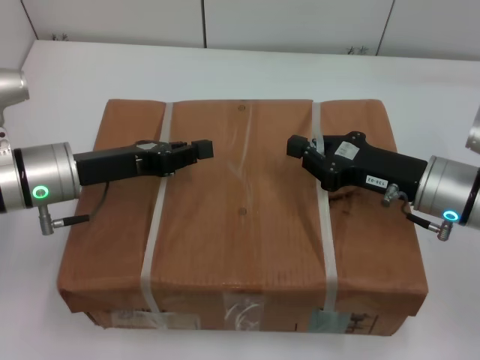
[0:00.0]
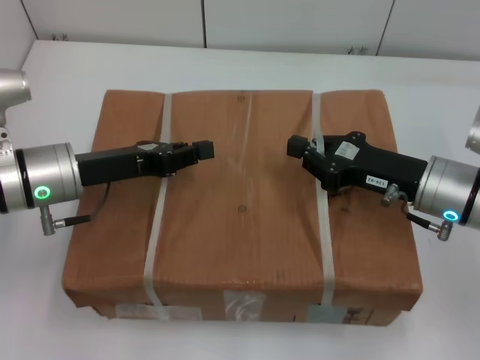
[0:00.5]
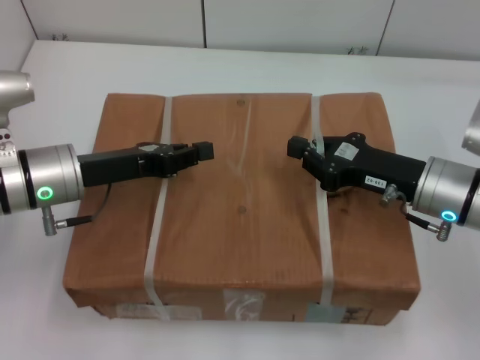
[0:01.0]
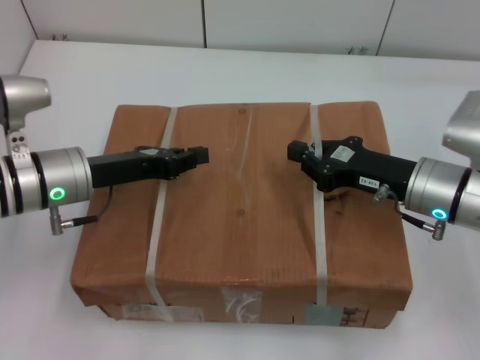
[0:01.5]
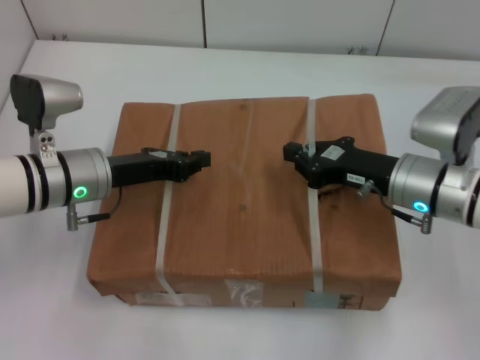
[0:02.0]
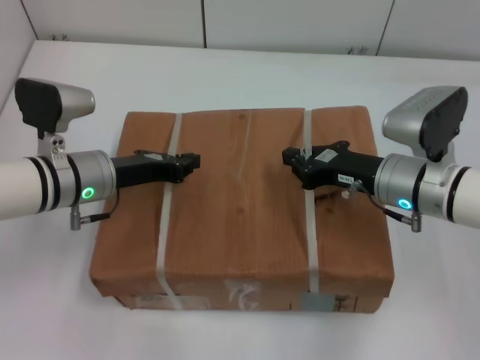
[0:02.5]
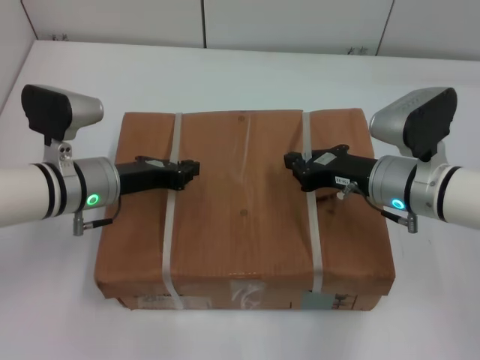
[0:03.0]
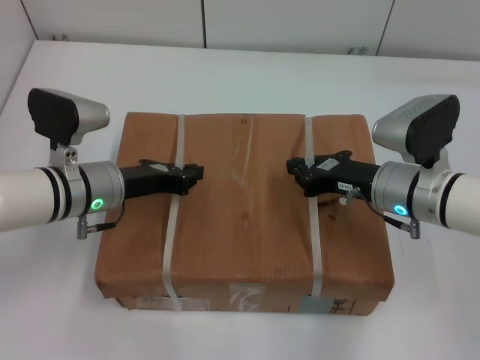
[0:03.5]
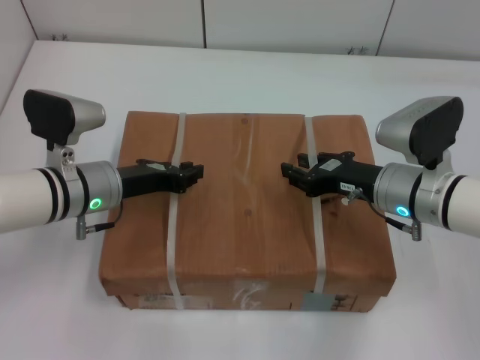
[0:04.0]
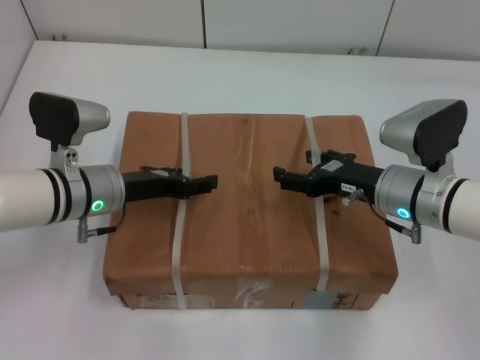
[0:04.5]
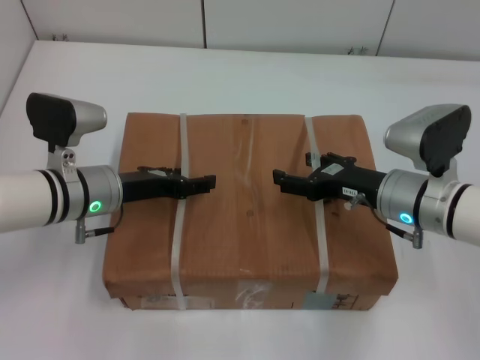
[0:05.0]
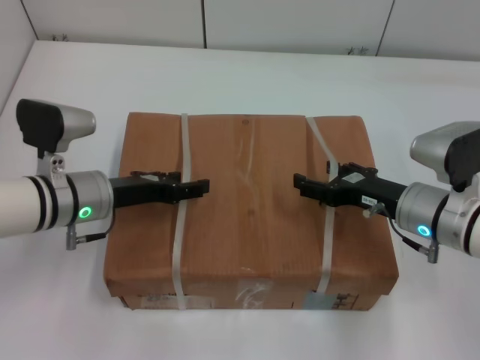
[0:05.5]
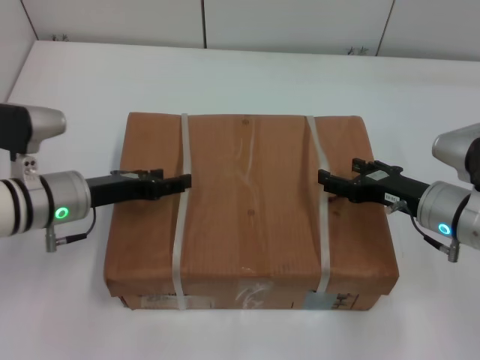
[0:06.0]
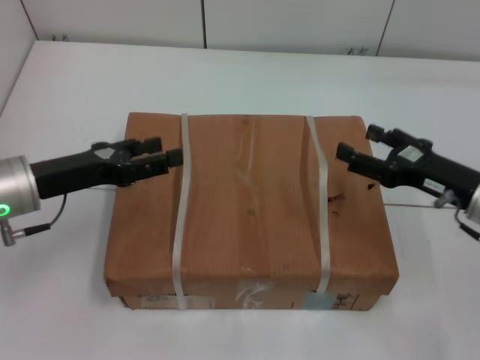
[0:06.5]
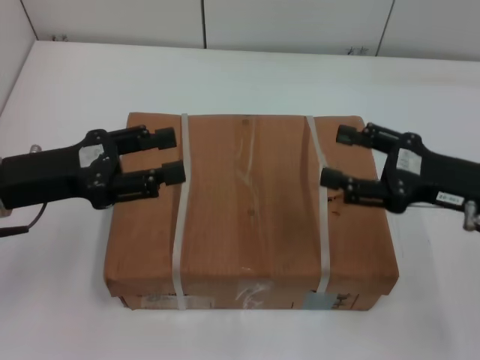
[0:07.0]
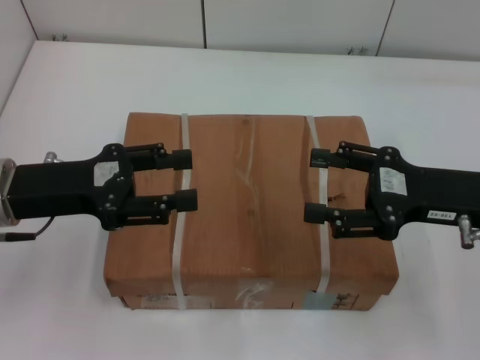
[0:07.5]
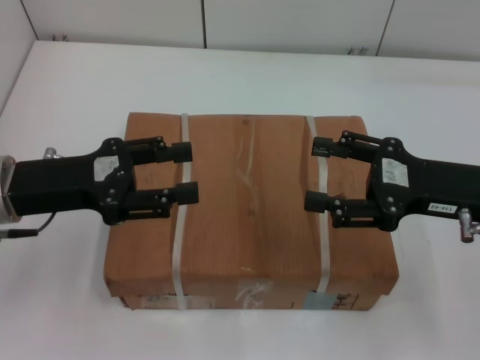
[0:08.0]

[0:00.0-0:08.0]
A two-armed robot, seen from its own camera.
Task of the whole recording: place the box on the table with both arms.
Step, 0:00.0 to 0:03.0: Place the box on the table with left gripper.
Step, 0:00.0 to 0:03.0: Place the box on the table with right gripper.
Step, 0:03.5 to 0:05.5: Loosen the box on the table with left gripper.
Step, 0:03.5 to 0:05.5: Loosen the box on the table with right gripper.
0:04.0 to 0:06.0: The right gripper shifts by about 5 cm, and opens. The left gripper opens.
0:06.0 to 0:08.0: Both grippers move upward, approximately 10 cm.
